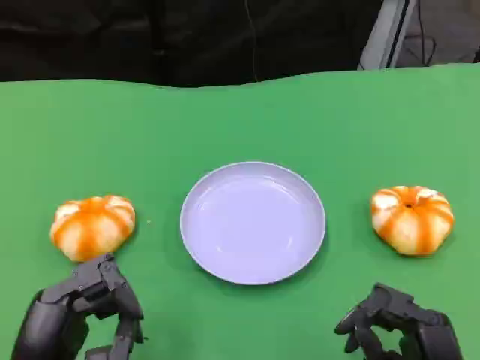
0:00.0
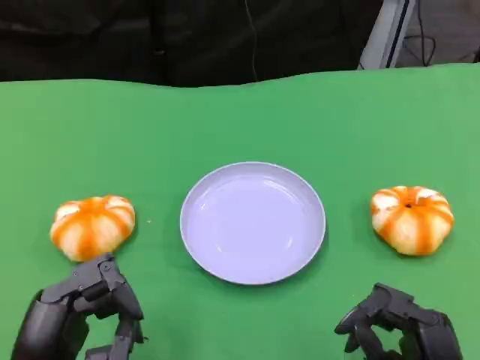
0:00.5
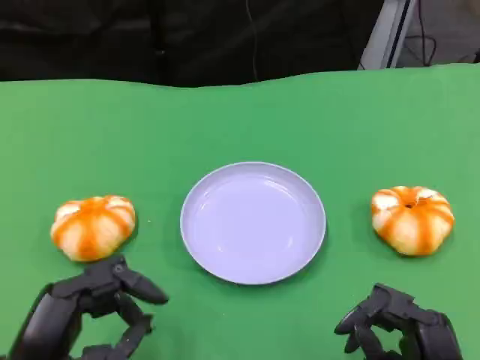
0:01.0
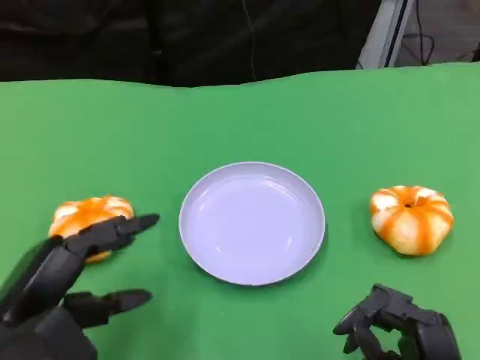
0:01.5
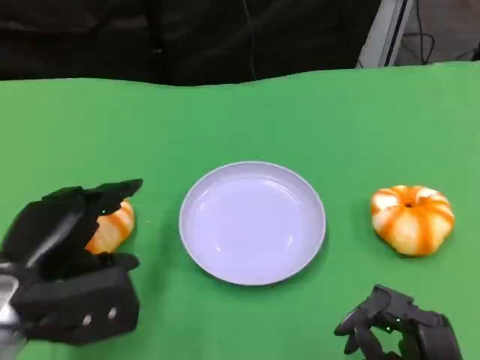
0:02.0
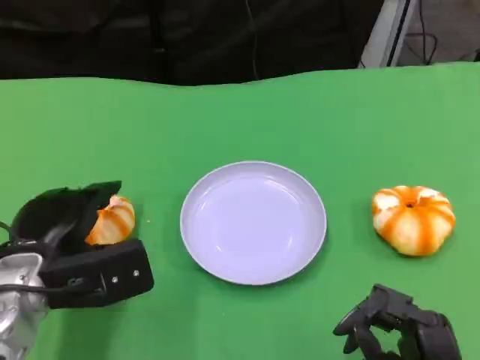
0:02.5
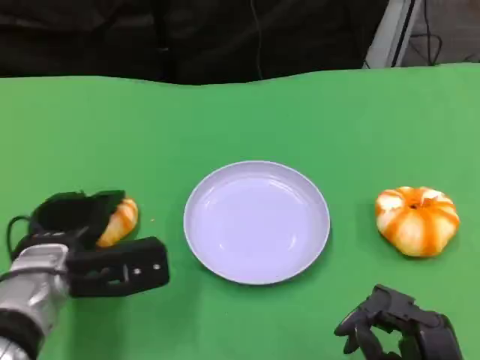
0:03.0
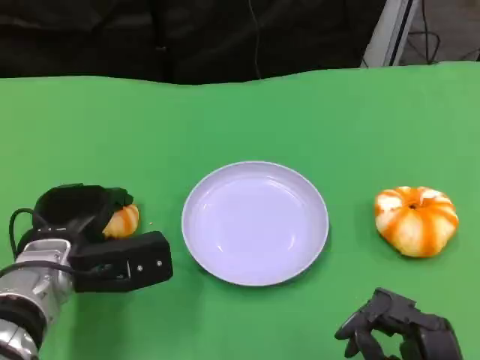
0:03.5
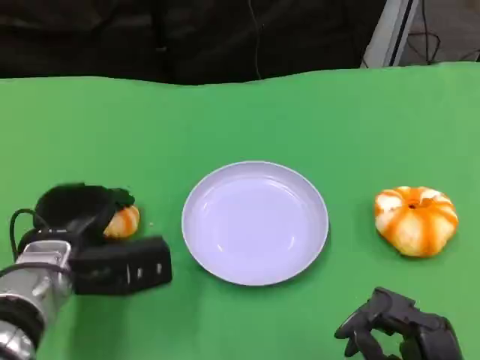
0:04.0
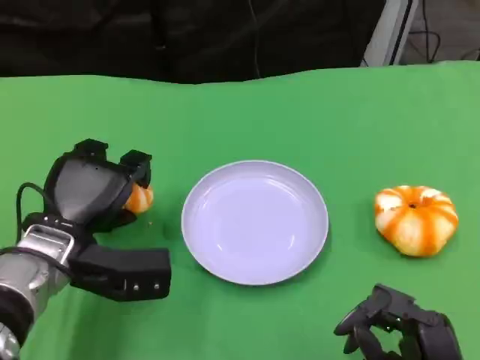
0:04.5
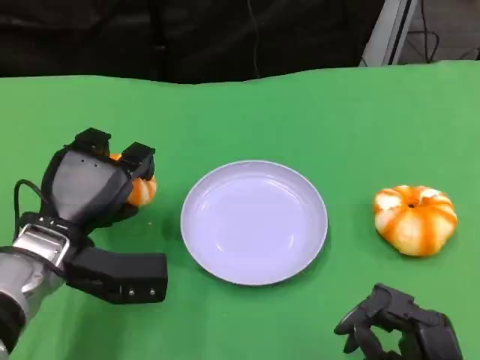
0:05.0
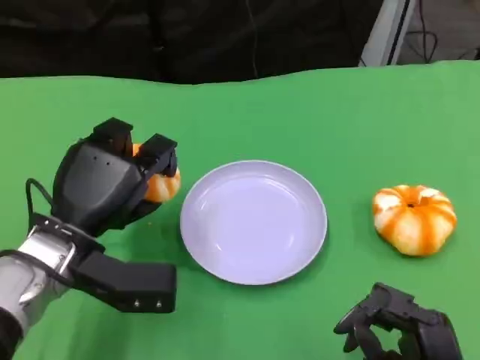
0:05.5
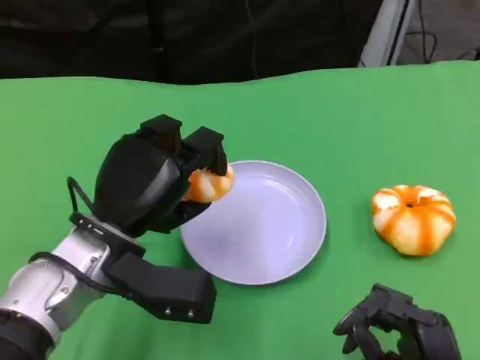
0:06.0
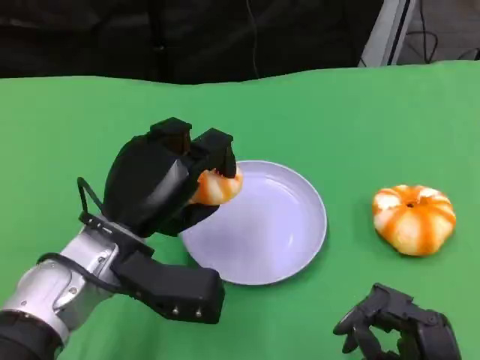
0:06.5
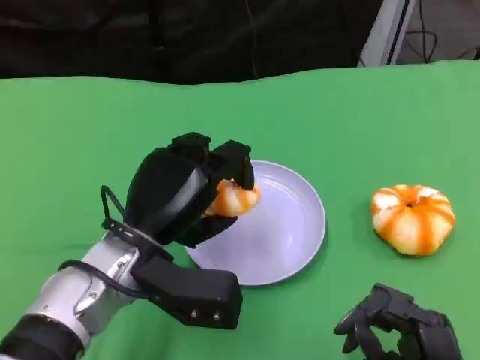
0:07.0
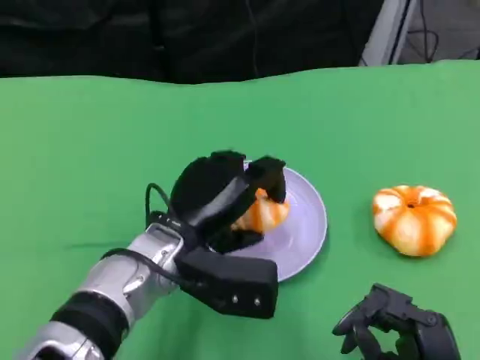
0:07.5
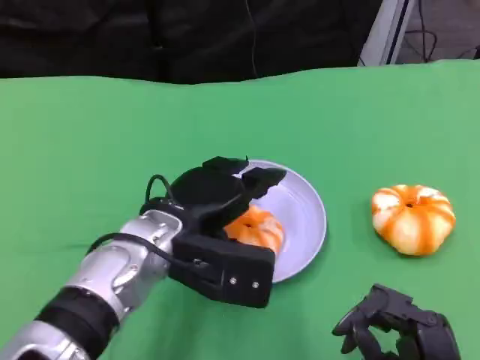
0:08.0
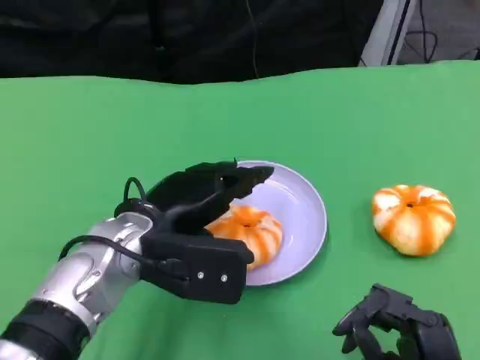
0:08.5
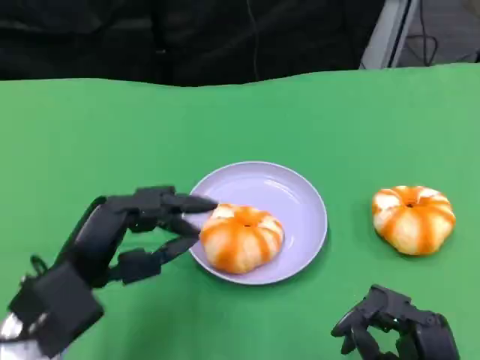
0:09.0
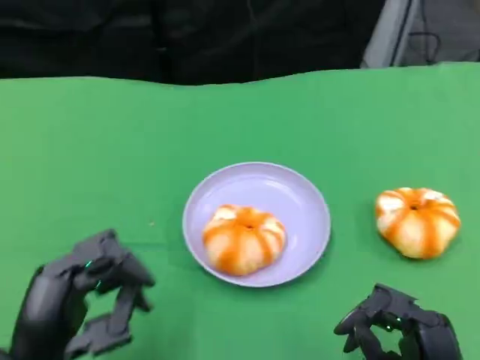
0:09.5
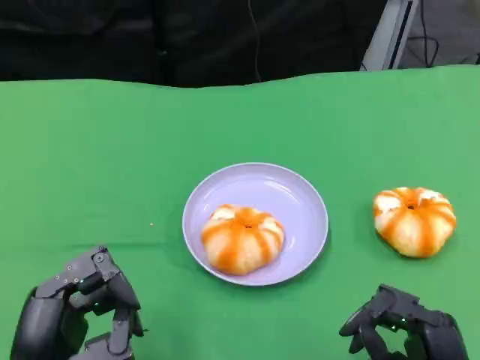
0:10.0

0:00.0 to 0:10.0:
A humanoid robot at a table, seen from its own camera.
Task of the whole recording: Grasp the bread from the table and place it into the plate.
0:00.0 to 0:02.0: The left hand moves forward, roughly 10 cm.
0:02.0 to 0:04.0: The left hand moves forward, approximately 5 cm.
0:04.0 to 0:06.0: The left hand moves to the right, approximately 5 cm.
0:06.0 to 0:08.0: The left hand ends up roughly 5 cm from where it was.
0:08.0 to 0:10.0: The left hand goes roughly 20 cm backward and to the left.

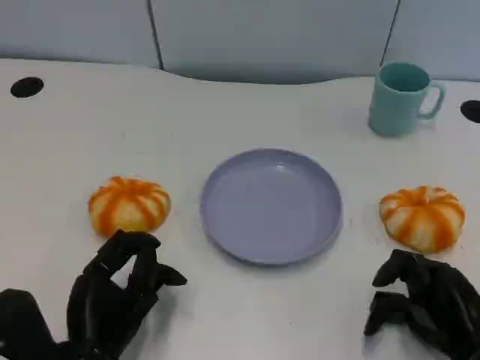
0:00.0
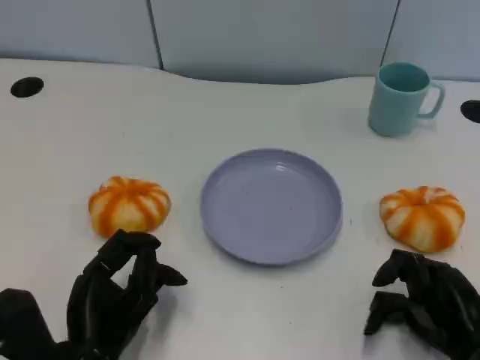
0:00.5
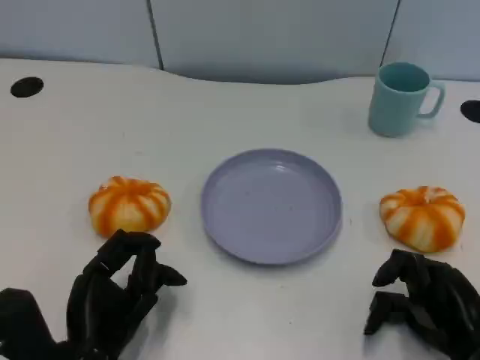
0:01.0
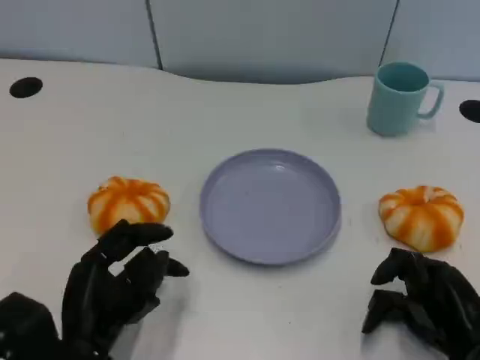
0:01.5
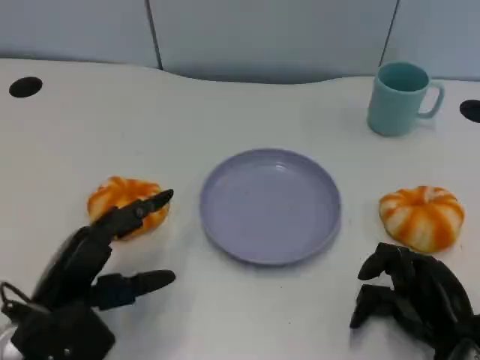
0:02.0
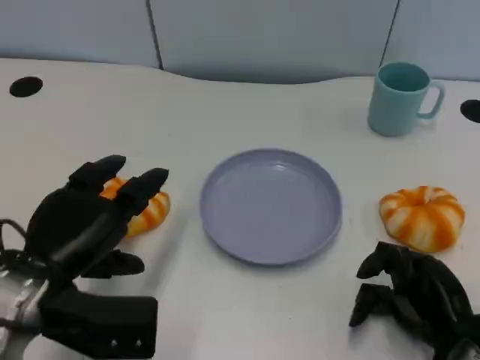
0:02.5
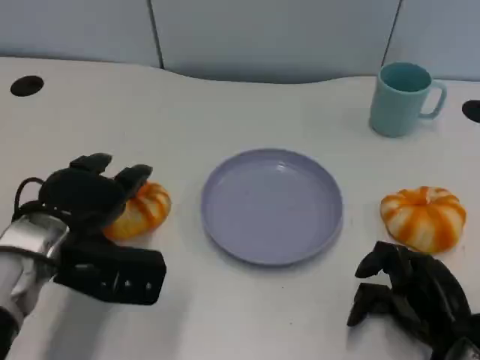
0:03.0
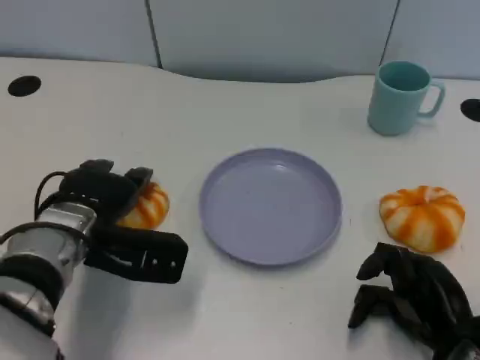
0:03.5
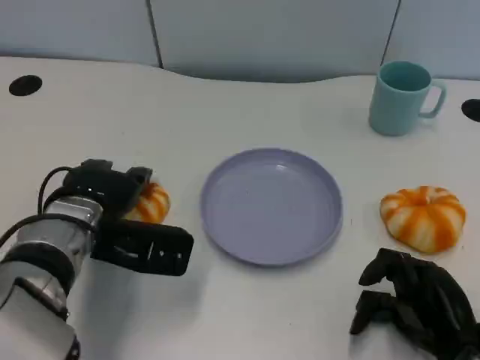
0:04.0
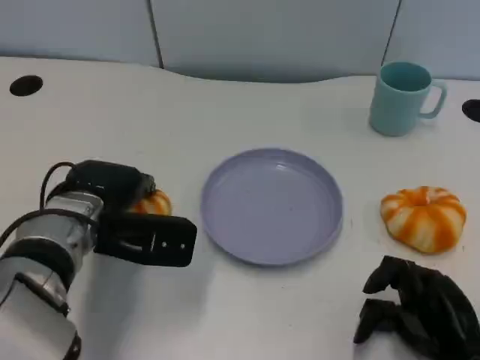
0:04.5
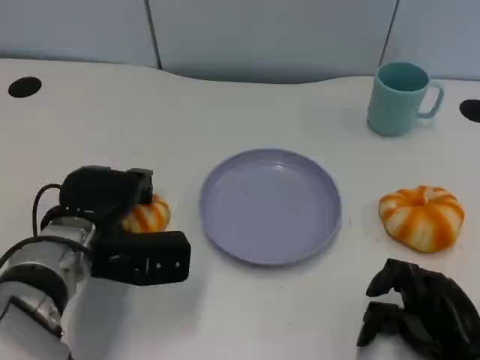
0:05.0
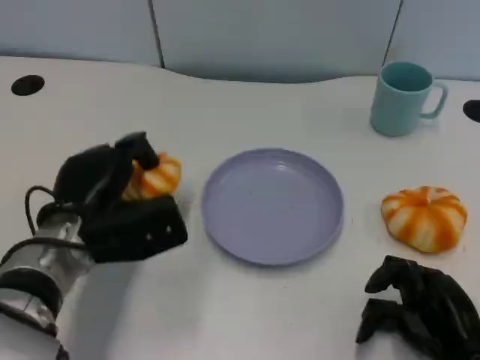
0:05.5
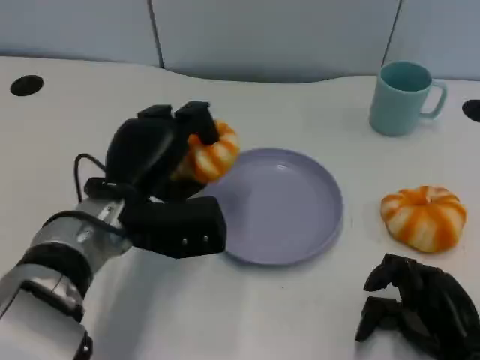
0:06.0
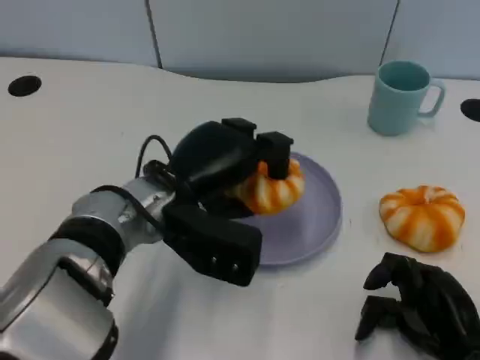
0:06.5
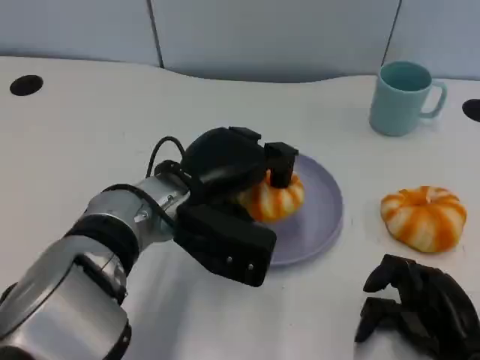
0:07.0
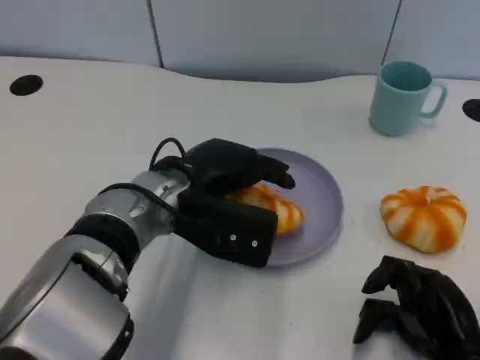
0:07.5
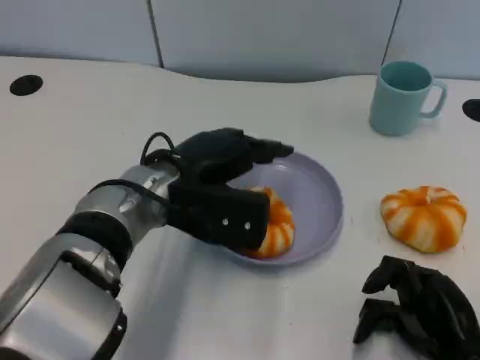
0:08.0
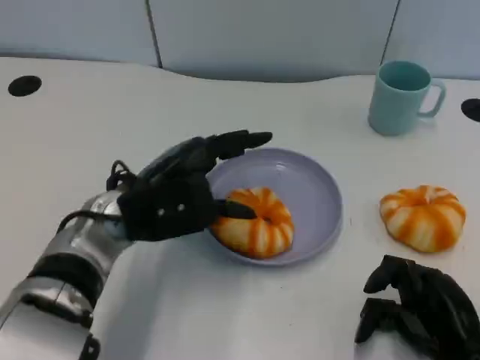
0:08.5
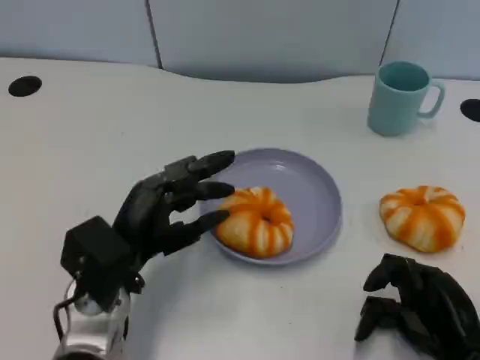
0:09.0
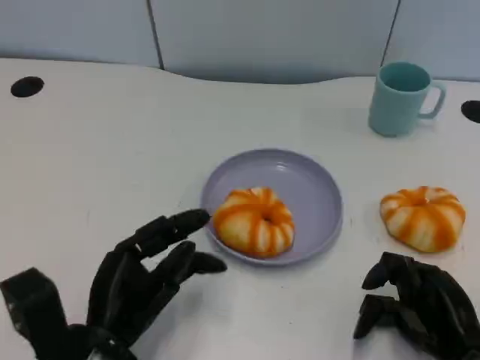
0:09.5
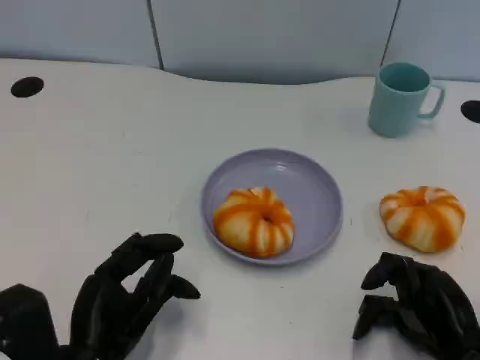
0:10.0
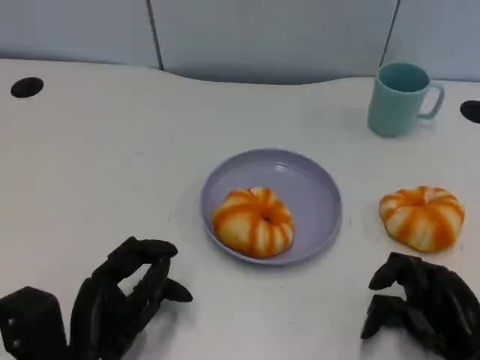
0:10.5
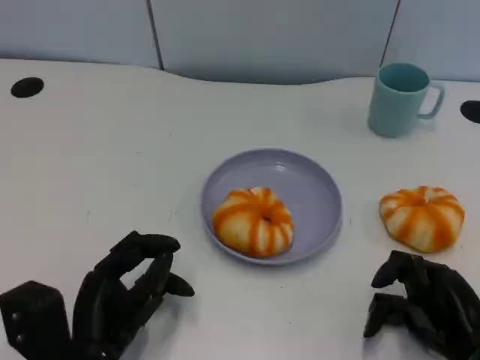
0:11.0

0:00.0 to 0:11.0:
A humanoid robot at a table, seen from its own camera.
Task of the whole recording: Grasp the bread from the table and place it into the plate.
0:00.0 to 0:02.0: The left hand moves roughly 5 cm.
0:02.0 to 0:03.5: The left hand shifts approximately 10 cm forward.
0:05.5 to 0:07.5: The left hand is displaced to the right by some 10 cm.
0:07.5 to 0:09.0: The left hand travels to the left, downward and backward by approximately 10 cm.
0:09.0 to 0:11.0: The left hand travels backward by about 5 cm.

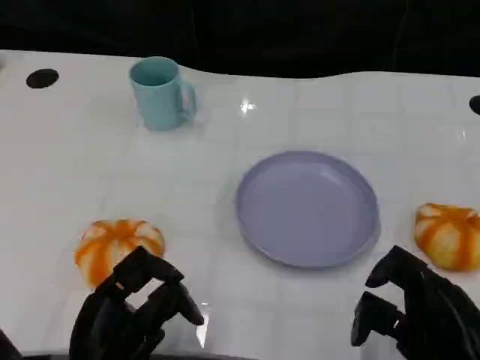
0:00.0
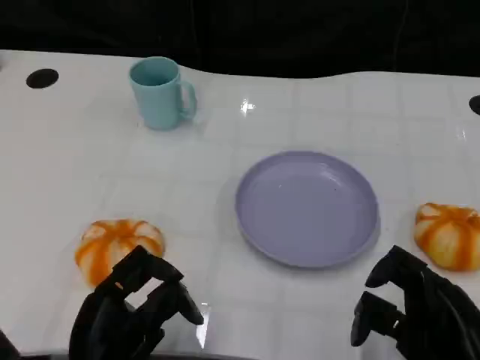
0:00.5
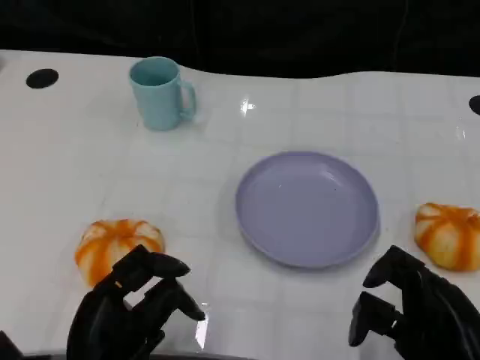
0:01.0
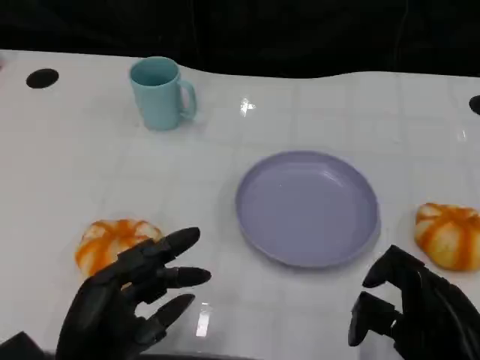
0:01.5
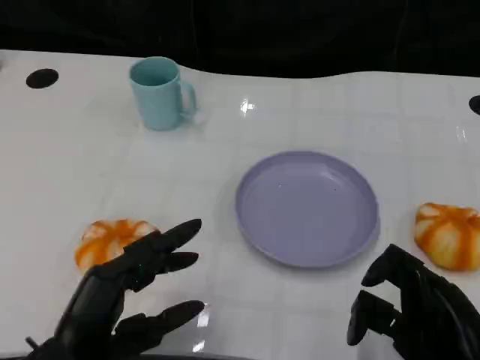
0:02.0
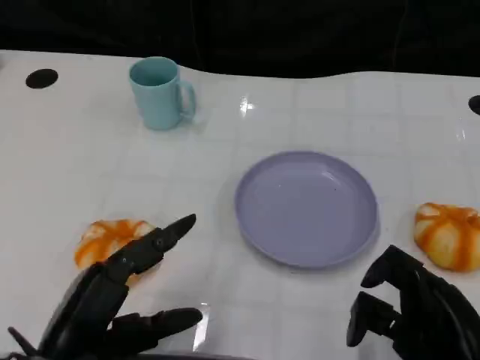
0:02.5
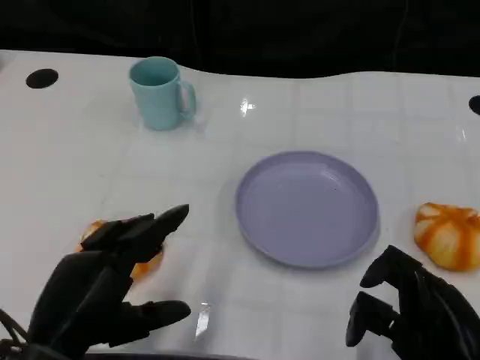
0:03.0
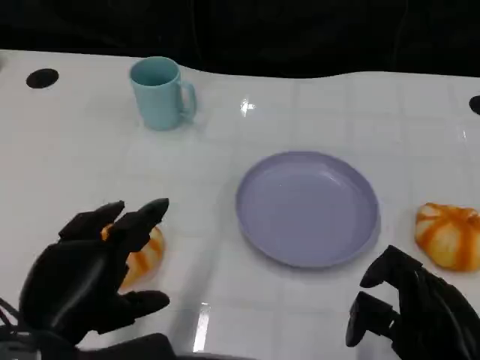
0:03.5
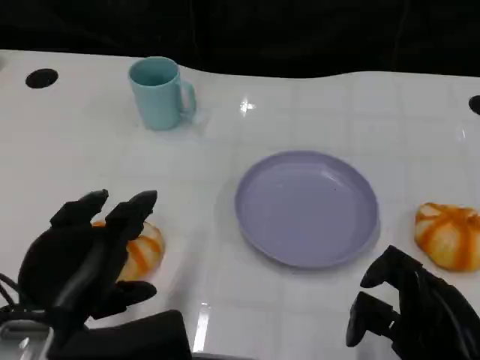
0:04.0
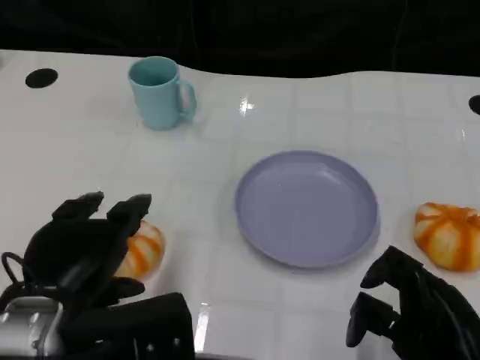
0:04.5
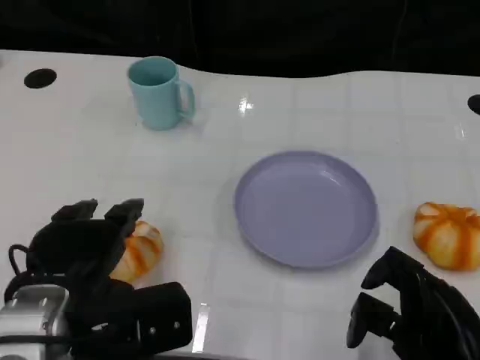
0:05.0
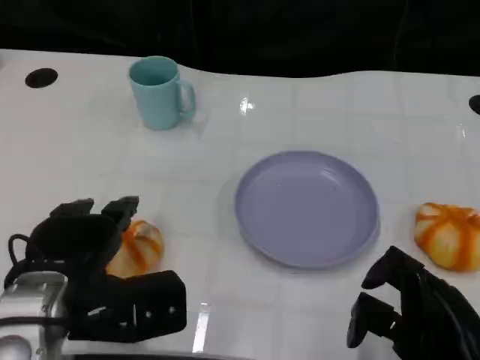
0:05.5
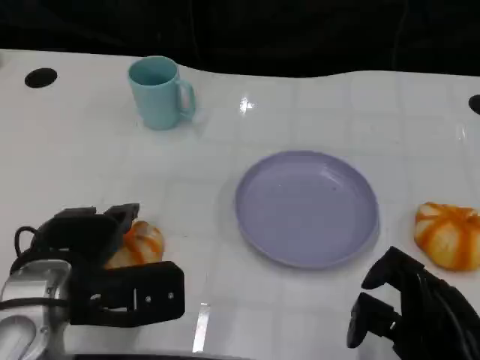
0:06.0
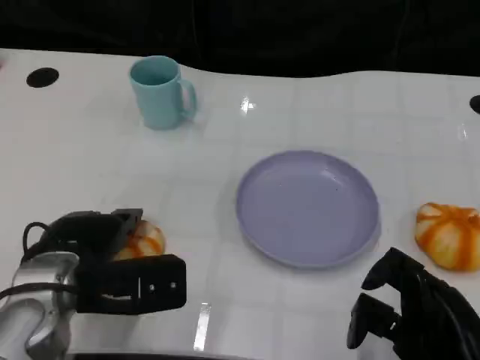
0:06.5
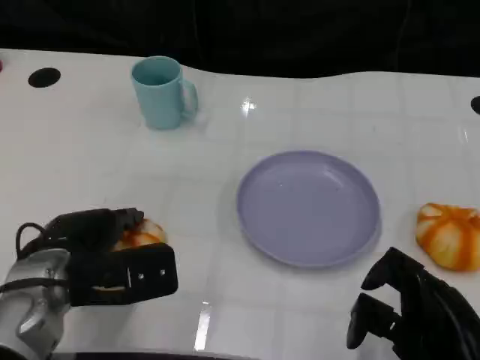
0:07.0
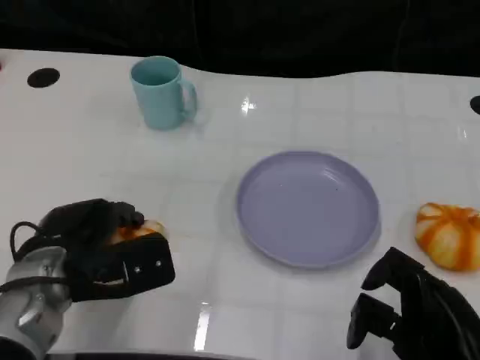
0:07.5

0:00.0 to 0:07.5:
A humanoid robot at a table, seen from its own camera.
Task of the whole recording: Grasp the bread from the table and place it into the plate.
0:02.0 to 0:04.0: The left hand shifts some 5 cm upward.
0:04.0 to 0:05.5: The left hand moves about 5 cm.
0:05.5 to 0:07.5: The left hand moves some 5 cm.
